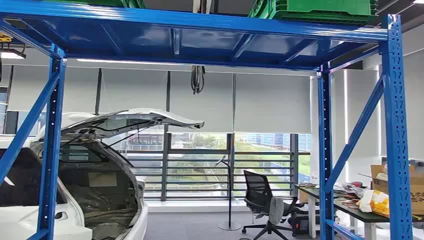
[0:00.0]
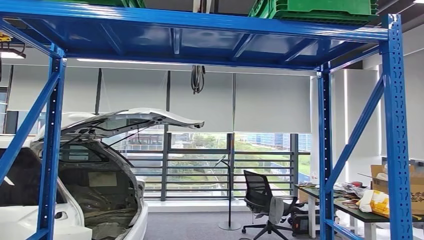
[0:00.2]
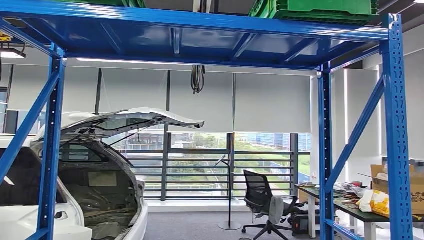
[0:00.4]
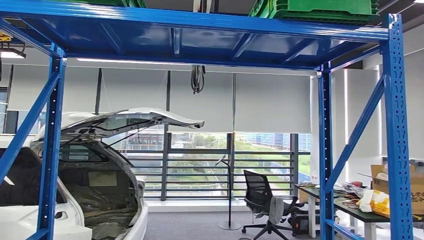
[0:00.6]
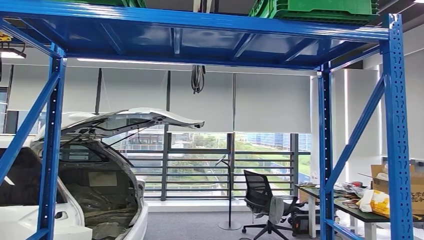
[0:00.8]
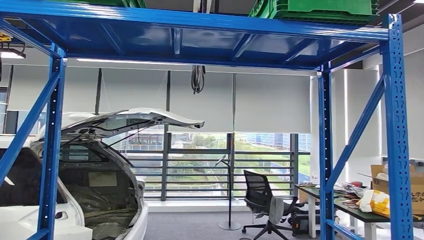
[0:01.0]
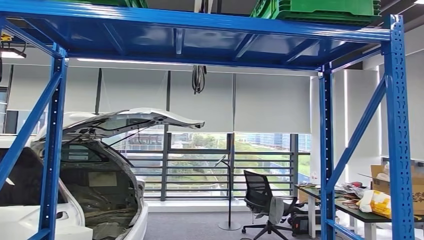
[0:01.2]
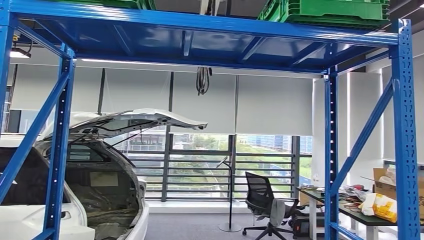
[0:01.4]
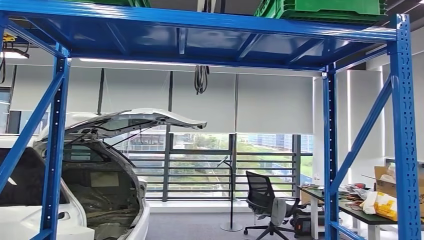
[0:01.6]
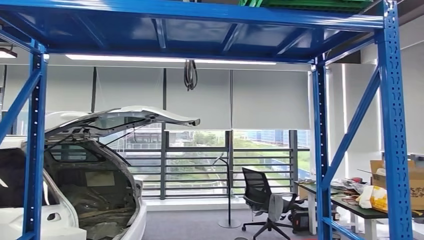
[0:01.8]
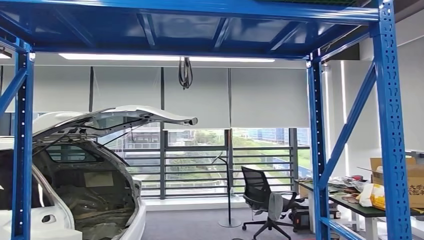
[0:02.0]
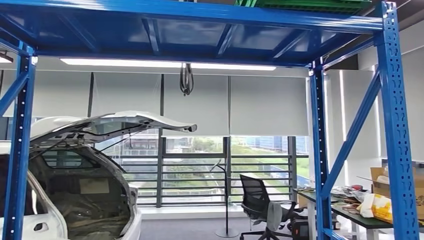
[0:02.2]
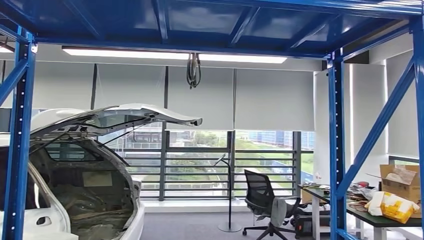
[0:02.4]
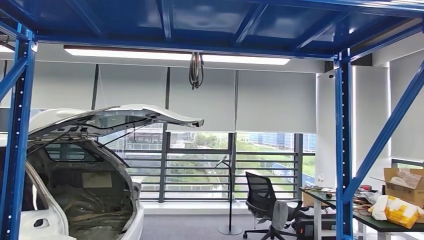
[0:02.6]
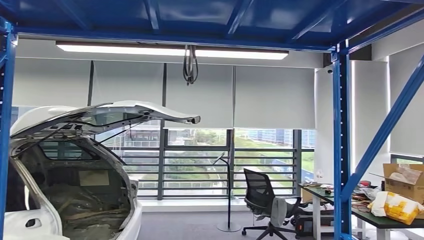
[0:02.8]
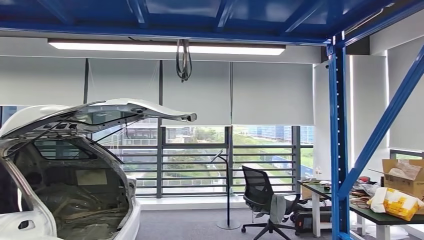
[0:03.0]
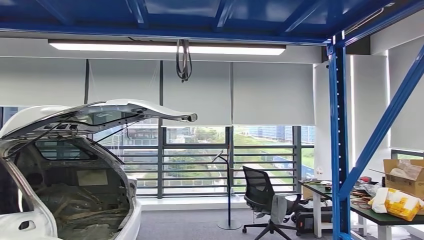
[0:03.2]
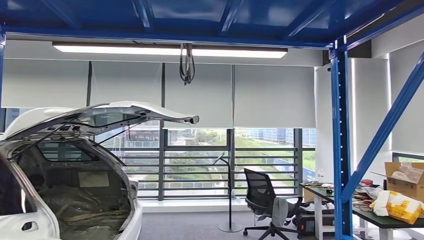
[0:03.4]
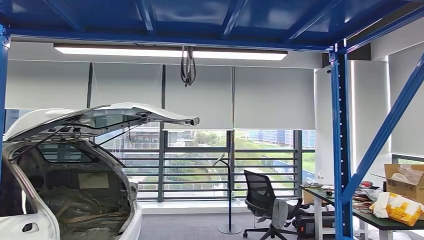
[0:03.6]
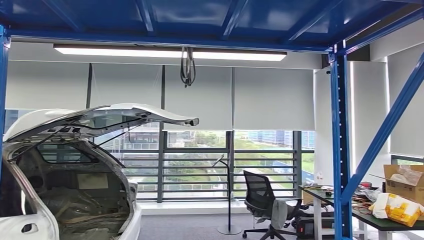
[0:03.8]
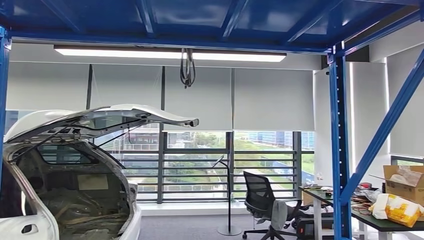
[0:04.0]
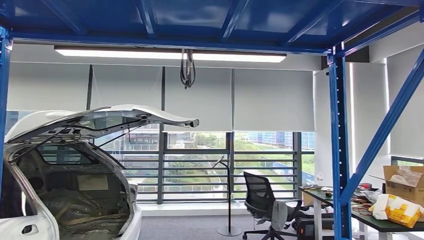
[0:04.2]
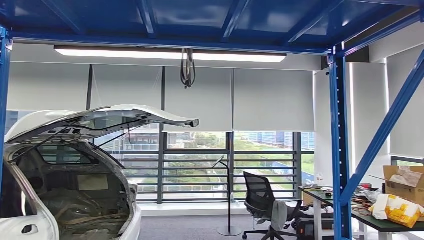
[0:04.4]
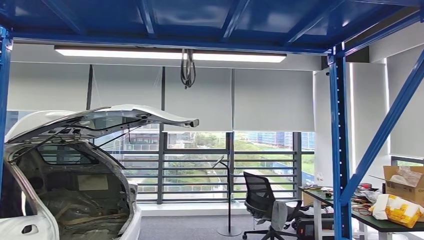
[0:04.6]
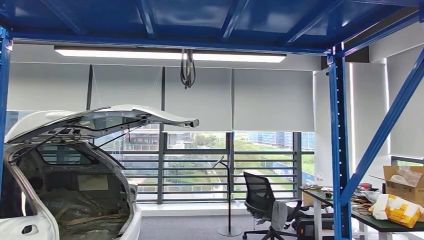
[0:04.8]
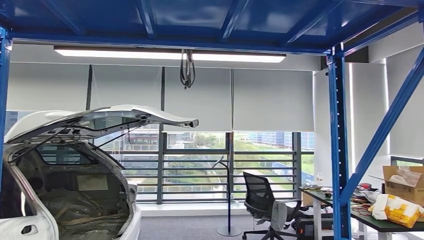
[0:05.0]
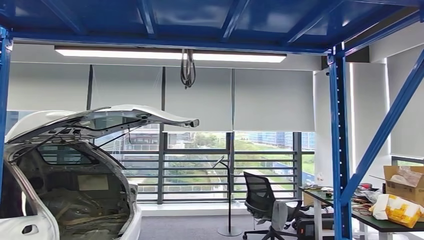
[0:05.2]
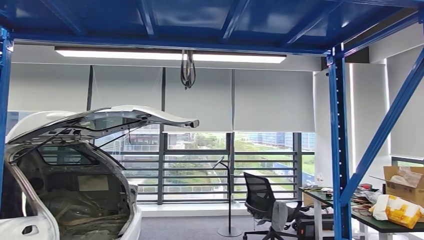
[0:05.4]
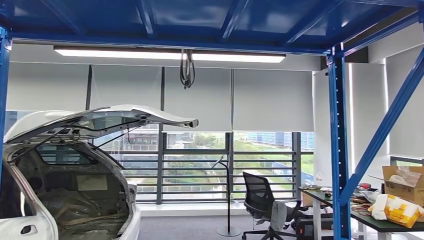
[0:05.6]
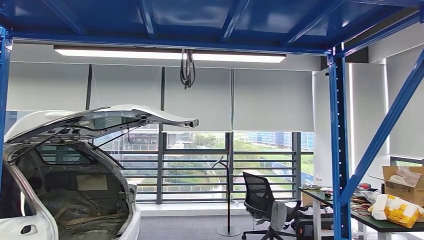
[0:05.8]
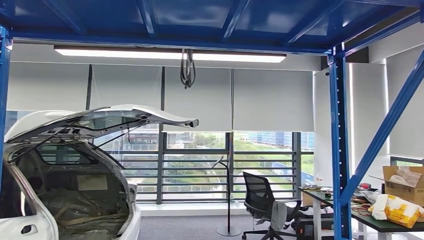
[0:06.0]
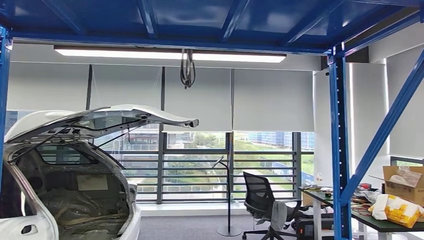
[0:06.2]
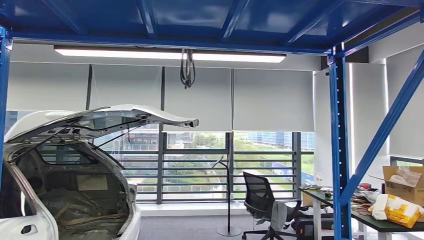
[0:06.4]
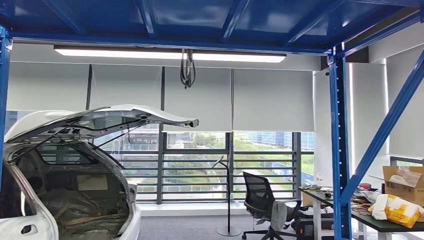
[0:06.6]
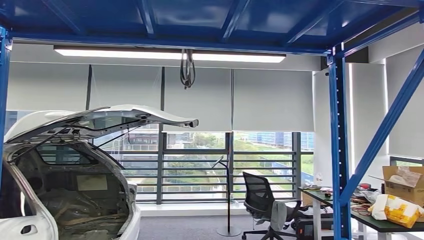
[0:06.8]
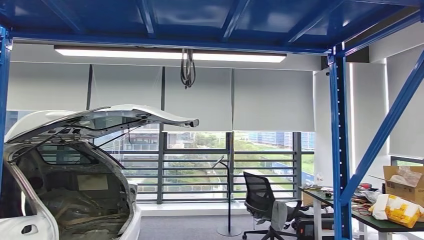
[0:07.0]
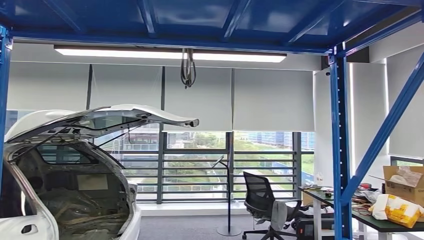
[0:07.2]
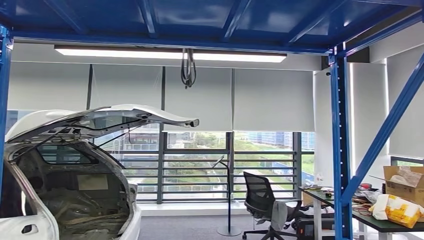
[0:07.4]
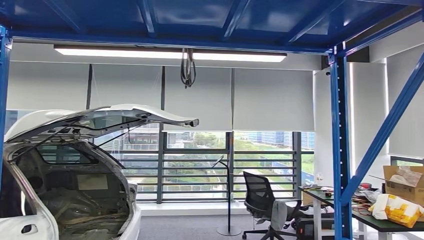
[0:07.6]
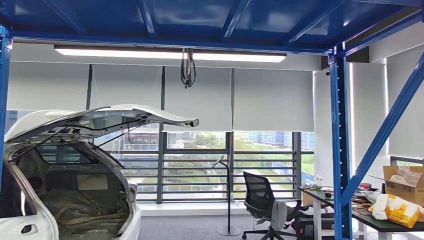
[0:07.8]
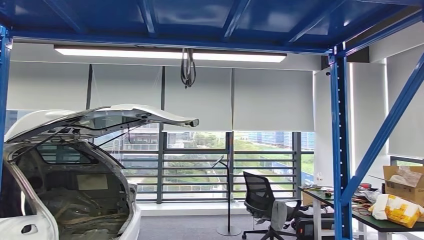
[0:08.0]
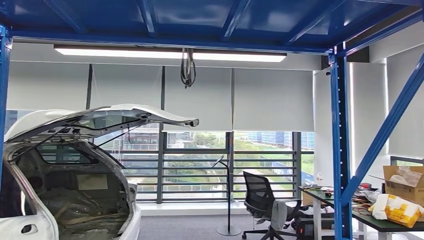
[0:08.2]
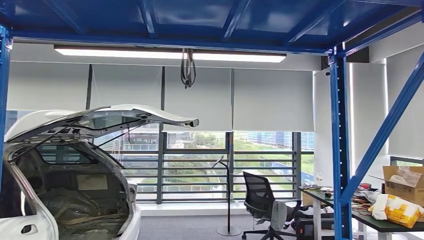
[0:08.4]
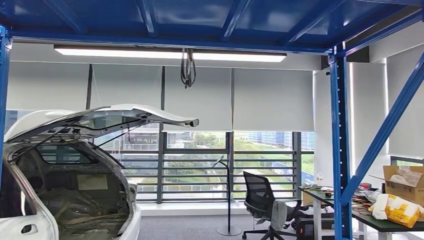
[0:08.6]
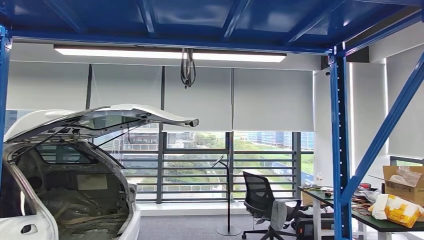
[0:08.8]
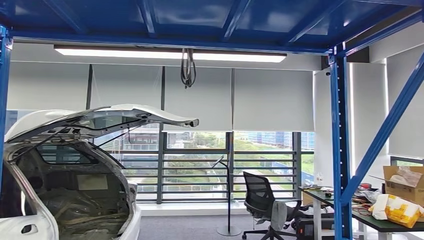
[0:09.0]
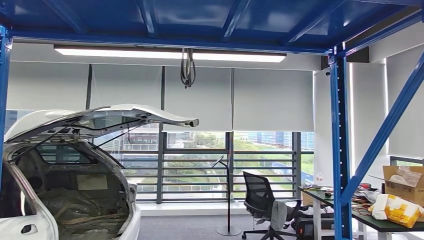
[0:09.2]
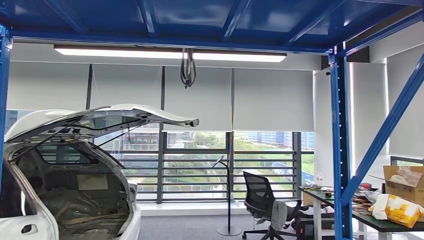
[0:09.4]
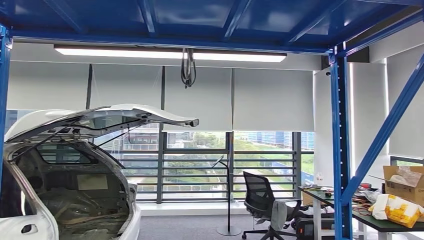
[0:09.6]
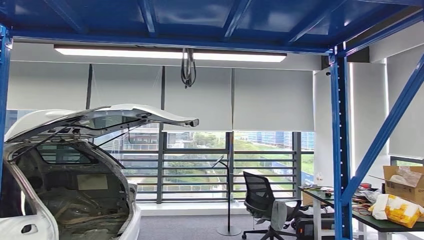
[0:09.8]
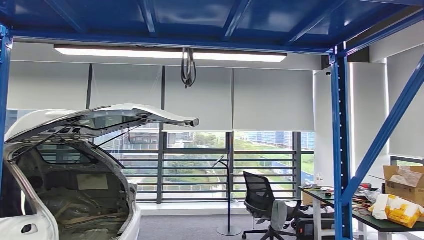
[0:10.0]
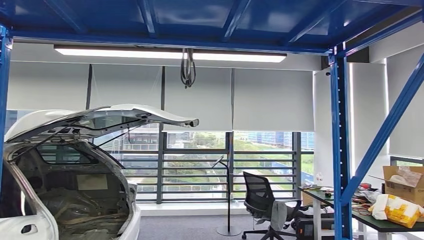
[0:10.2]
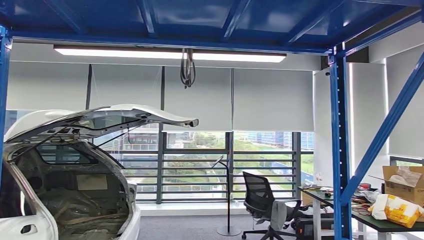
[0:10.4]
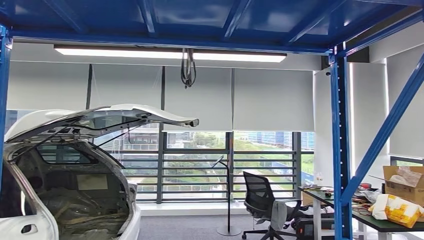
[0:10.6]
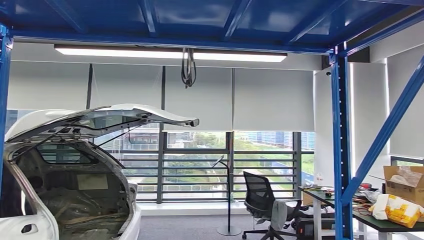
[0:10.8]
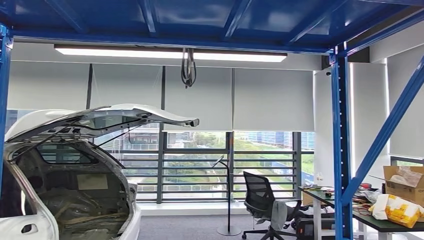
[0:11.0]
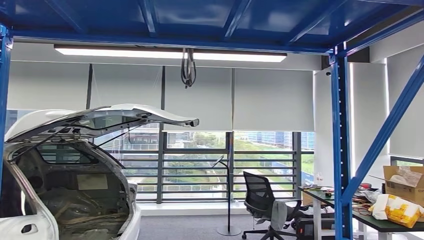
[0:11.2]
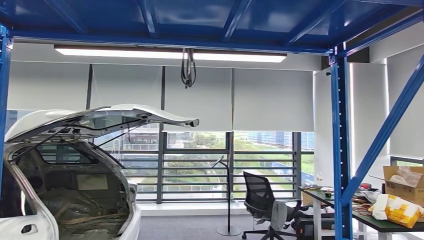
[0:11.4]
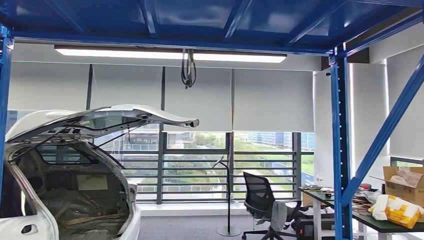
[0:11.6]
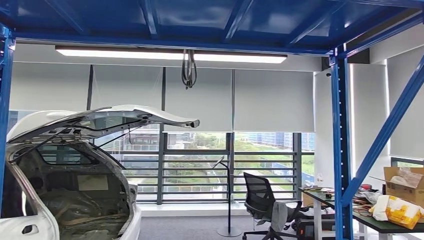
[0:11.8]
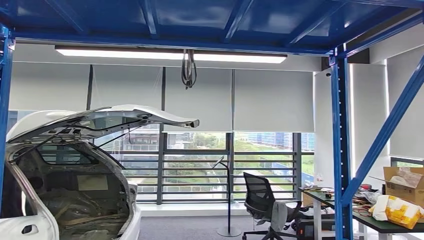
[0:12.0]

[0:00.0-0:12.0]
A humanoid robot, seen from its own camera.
0:04.4 to 0:06.0: The right hand moves forward, some 15 cm.
0:06.0 to 0:07.6: The right hand moves forward, about 5 cm.
0:10.4 to 0:12.0: The hands make only small movements.

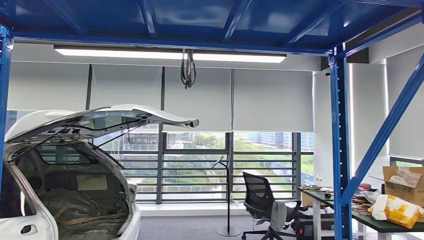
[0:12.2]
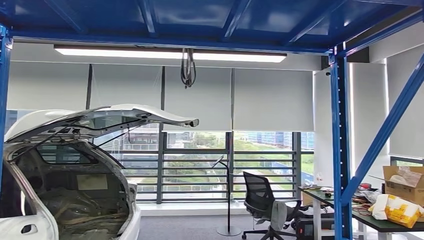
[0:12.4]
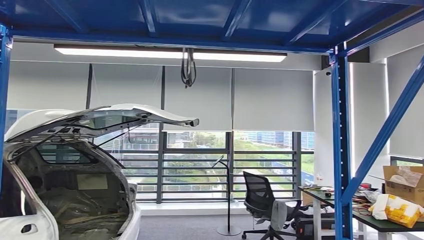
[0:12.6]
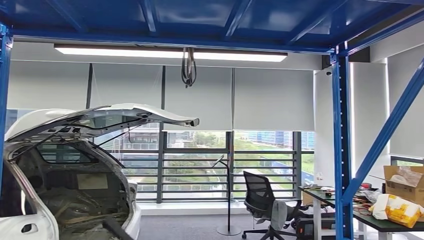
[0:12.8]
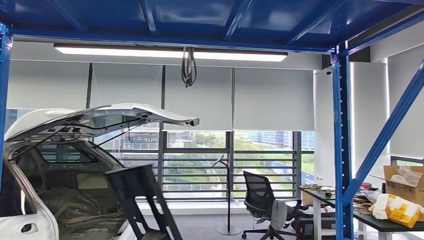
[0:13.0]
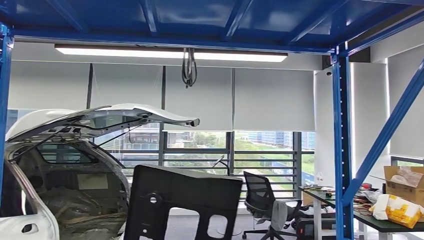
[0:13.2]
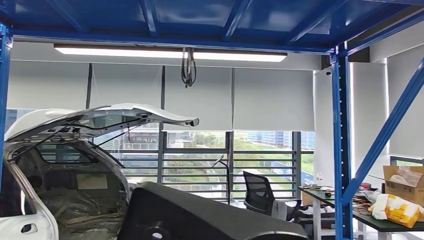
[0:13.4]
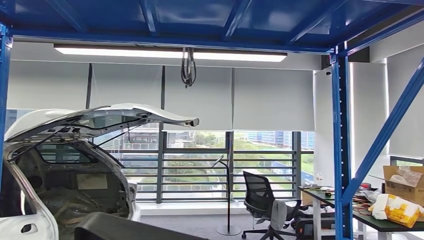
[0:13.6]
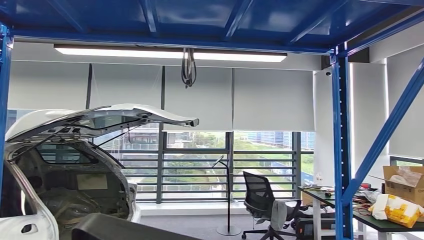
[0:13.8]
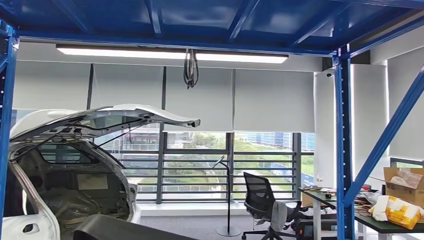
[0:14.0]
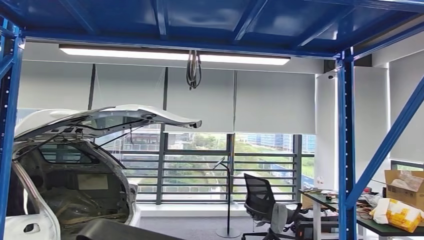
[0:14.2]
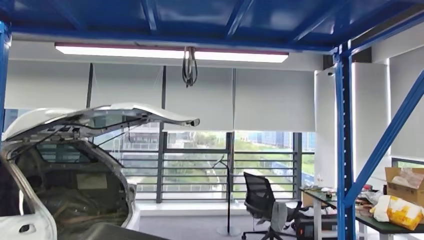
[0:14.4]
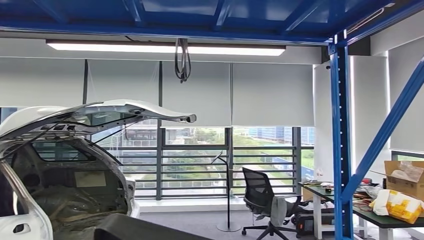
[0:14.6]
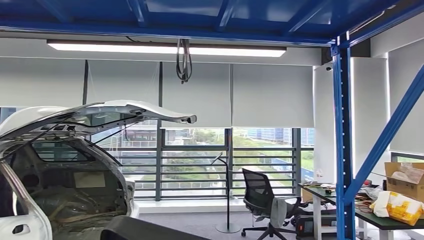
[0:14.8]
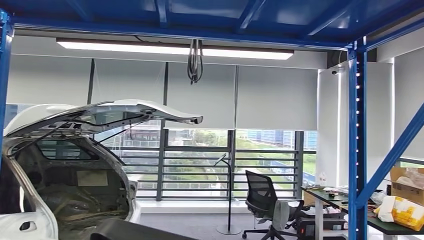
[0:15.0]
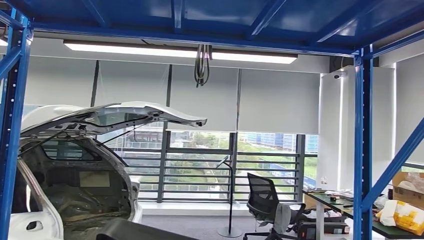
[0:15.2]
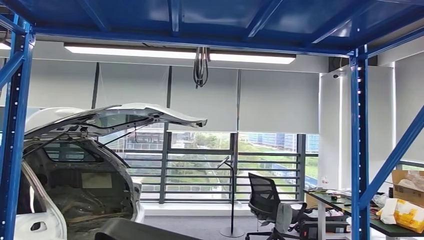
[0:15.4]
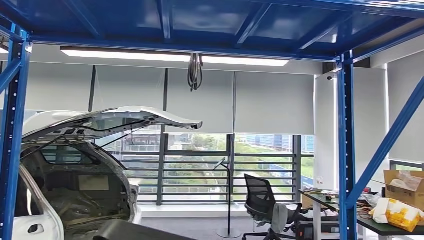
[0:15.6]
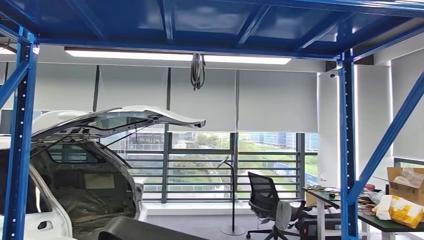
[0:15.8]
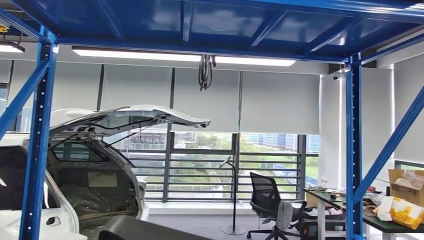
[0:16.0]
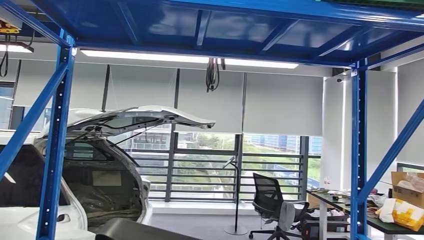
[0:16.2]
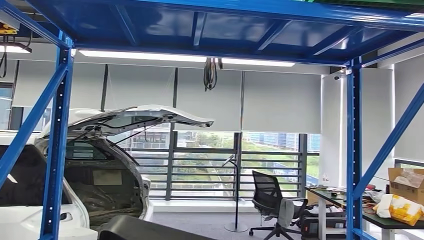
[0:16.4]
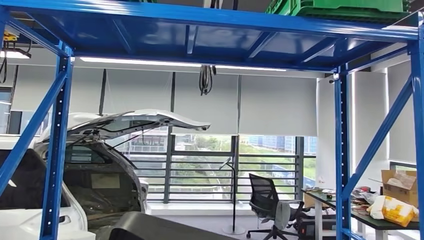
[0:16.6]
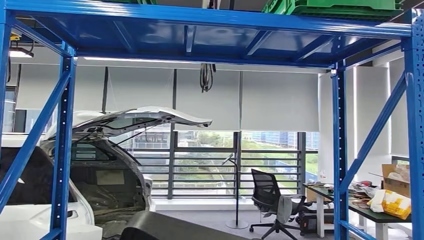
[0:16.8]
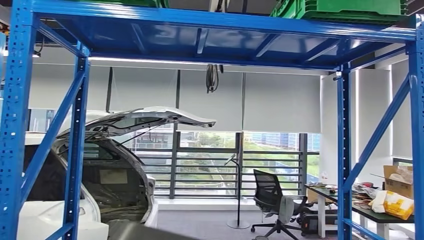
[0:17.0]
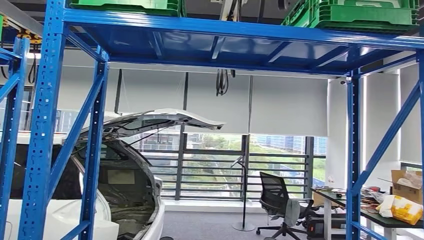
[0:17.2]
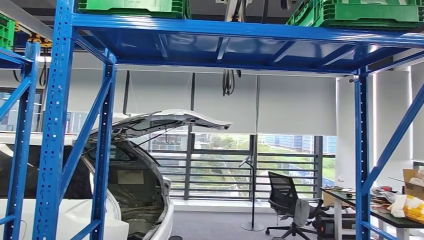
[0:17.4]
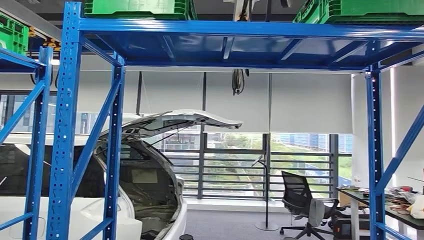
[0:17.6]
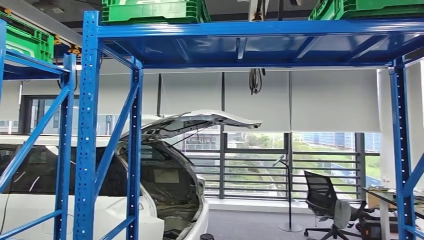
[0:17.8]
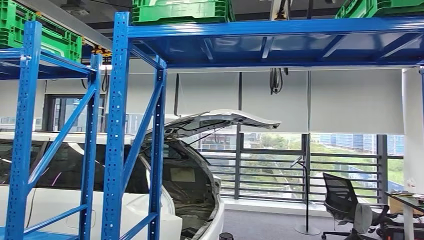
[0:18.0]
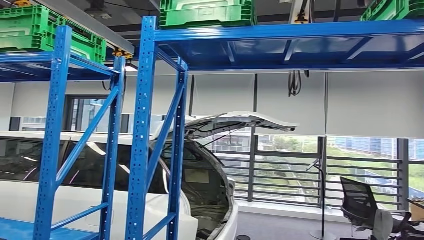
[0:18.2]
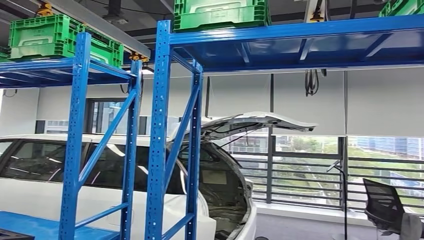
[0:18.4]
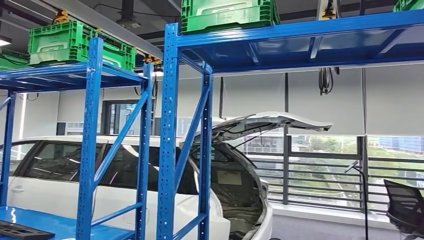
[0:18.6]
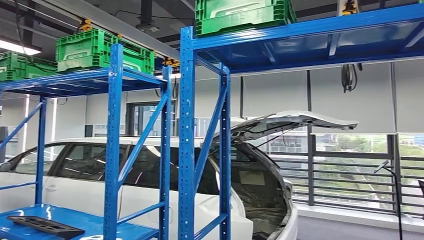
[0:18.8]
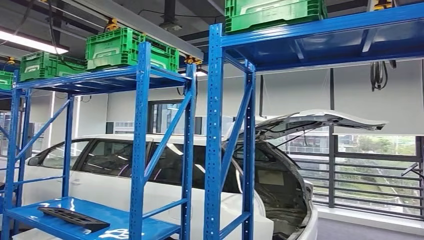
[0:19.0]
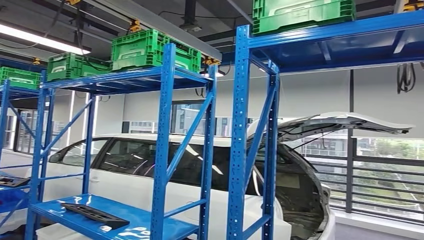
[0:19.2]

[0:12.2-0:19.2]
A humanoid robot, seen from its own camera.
0:12.2 to 0:13.6: The right hand is displaced upward, backward and to the left by approximately 20 cm.
